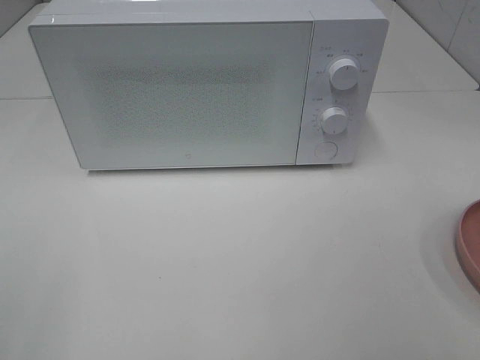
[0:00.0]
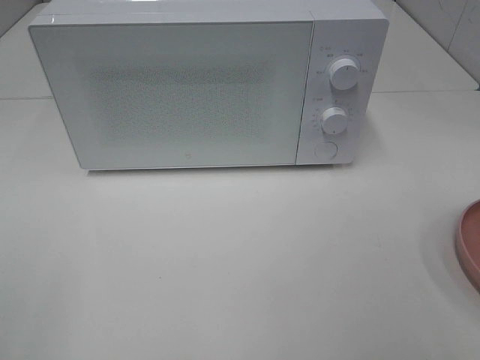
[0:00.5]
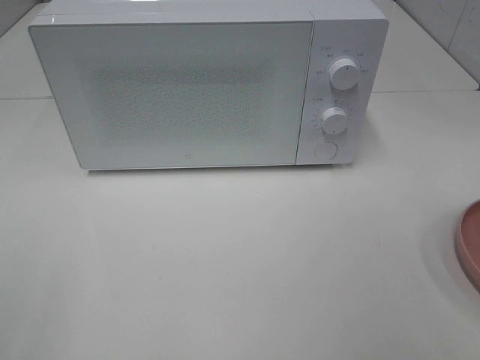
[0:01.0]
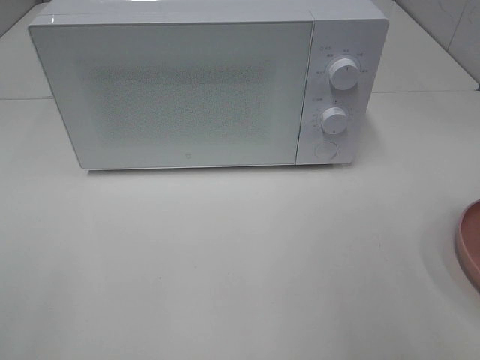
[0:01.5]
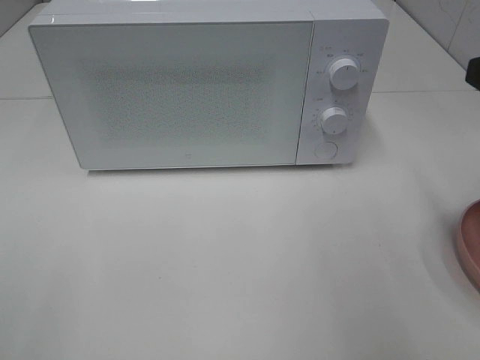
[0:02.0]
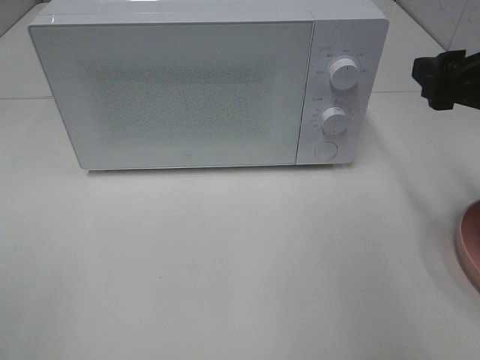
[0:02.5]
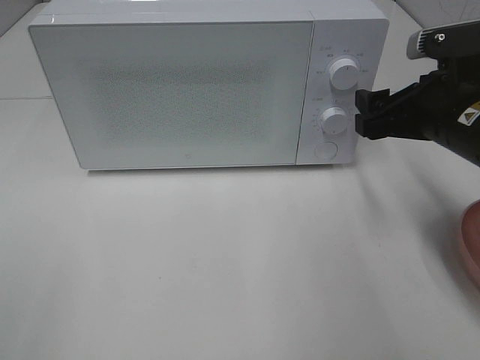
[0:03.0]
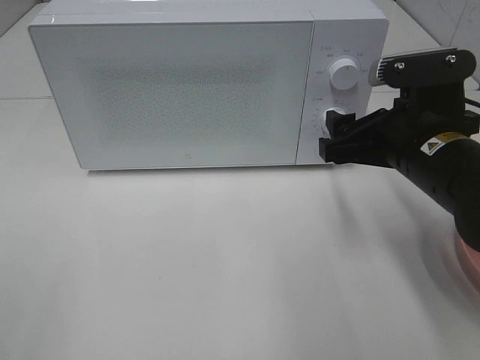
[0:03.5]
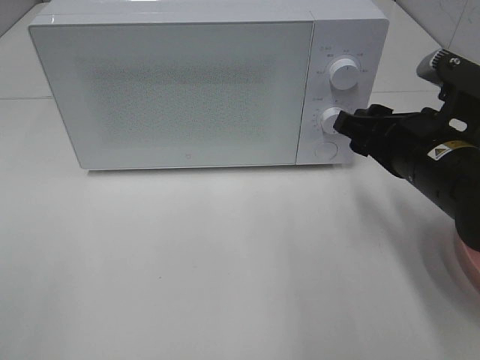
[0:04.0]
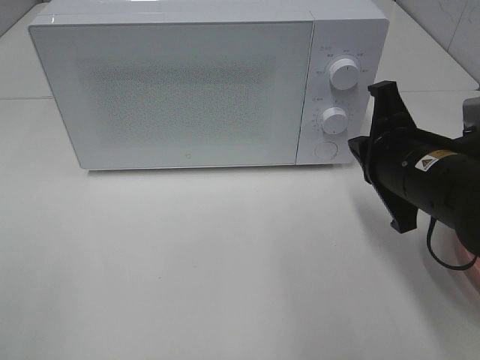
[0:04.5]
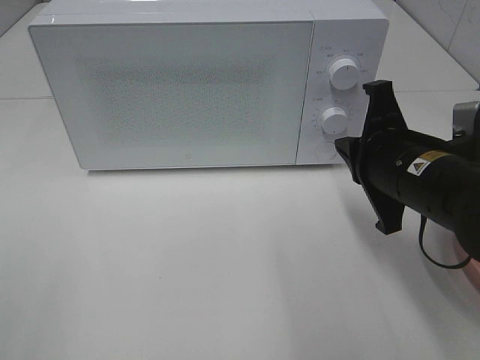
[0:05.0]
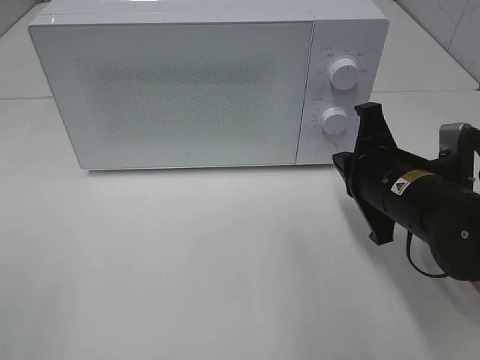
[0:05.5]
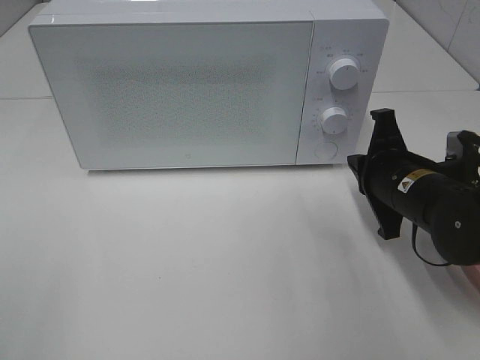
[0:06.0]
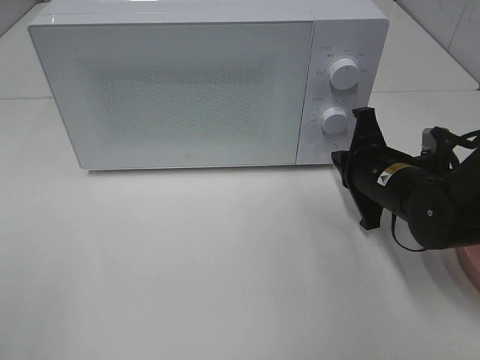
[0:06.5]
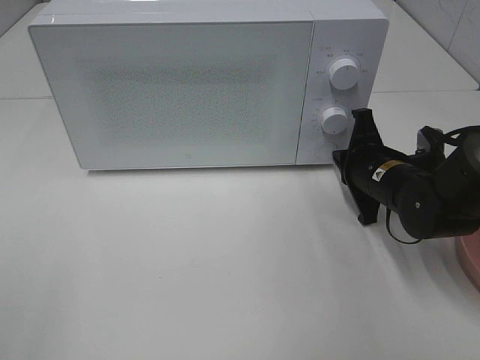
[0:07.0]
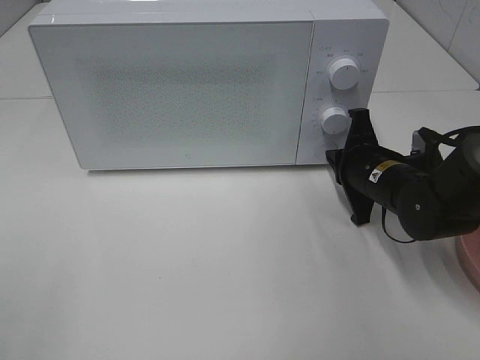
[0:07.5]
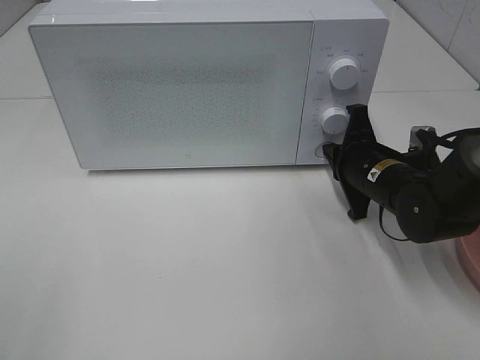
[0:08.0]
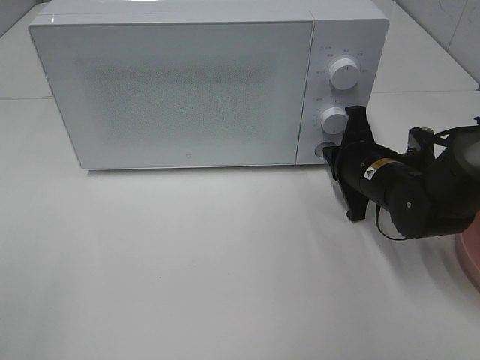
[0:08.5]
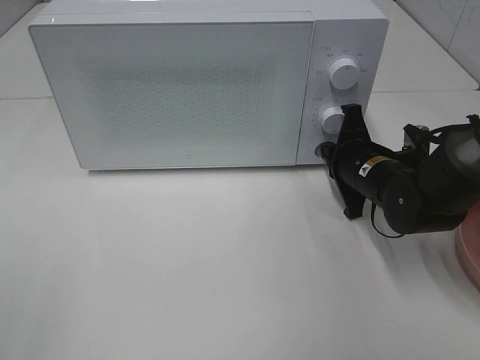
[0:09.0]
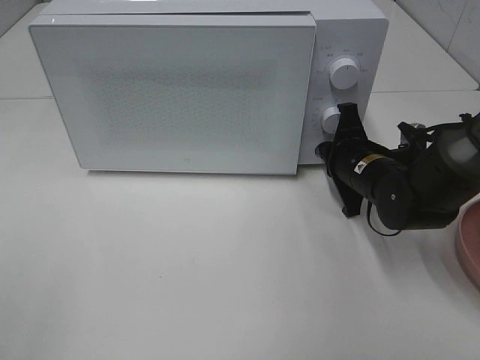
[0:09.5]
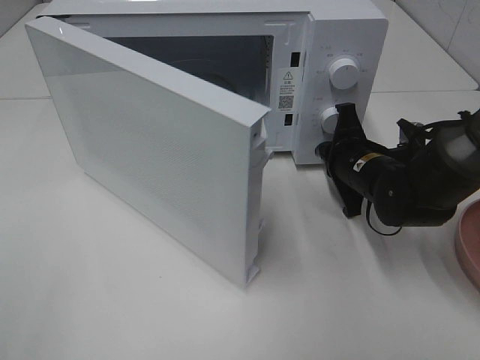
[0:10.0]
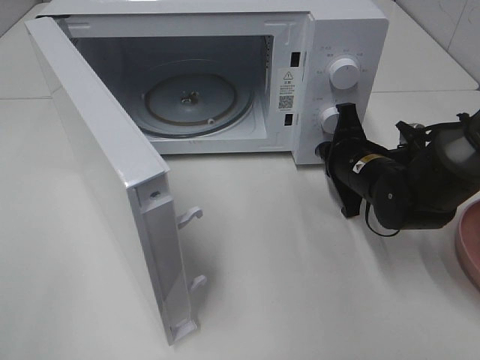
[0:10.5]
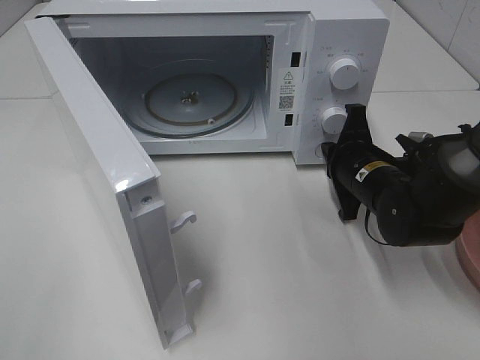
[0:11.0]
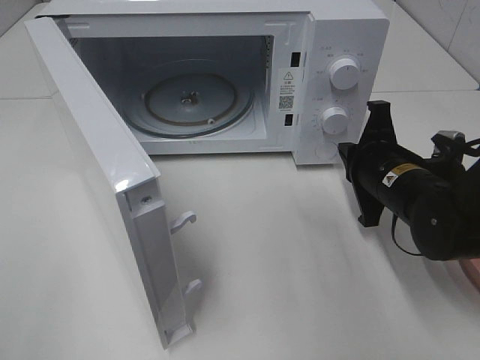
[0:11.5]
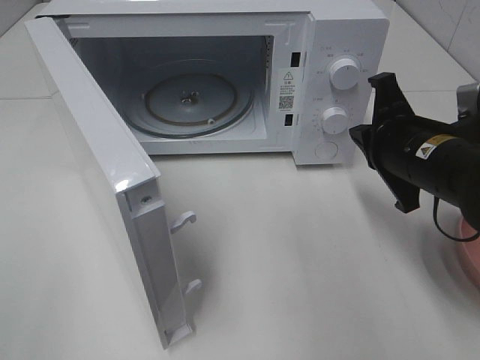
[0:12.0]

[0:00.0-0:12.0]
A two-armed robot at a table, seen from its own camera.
Task of the whole recording: Heat the burger.
Step, 0.0 to 11.0 s: Right hand: press the switch.
2.0 to 4.0 s: The right gripper travels downward, to the left and forward by some 15 cm.
4.0 to 6.0 s: The right gripper is displaced downward by approximately 5 cm, and closes its fingers.
6.0 to 8.0 s: The right gripper goes some 5 cm forward.
10.0 to 12.0 s: The right gripper is displaced upward and backward by about 10 cm.

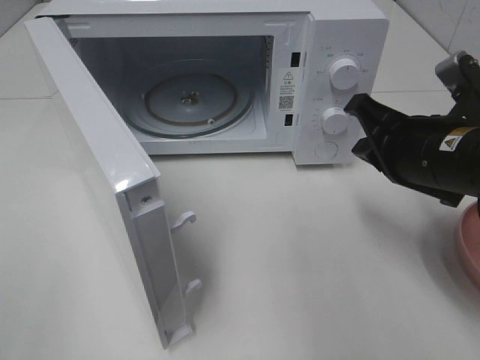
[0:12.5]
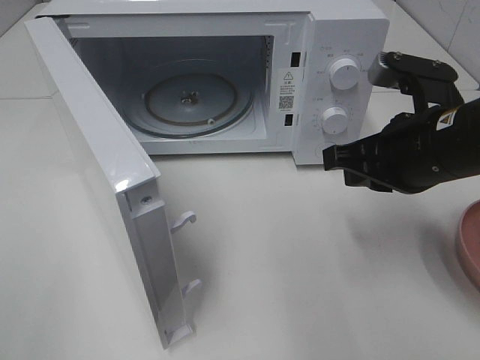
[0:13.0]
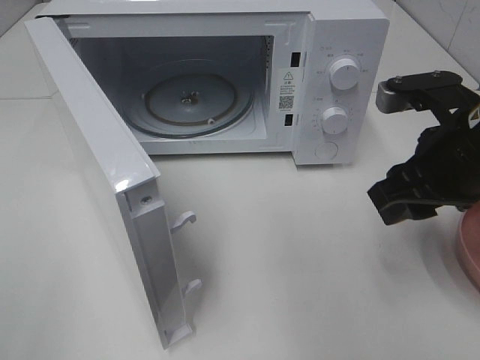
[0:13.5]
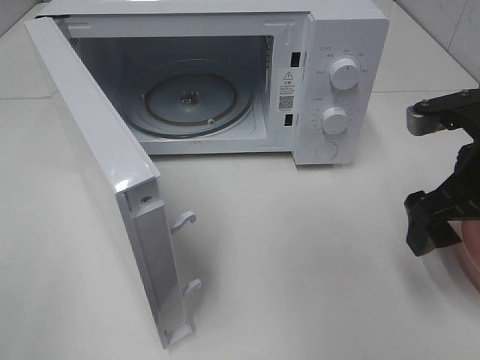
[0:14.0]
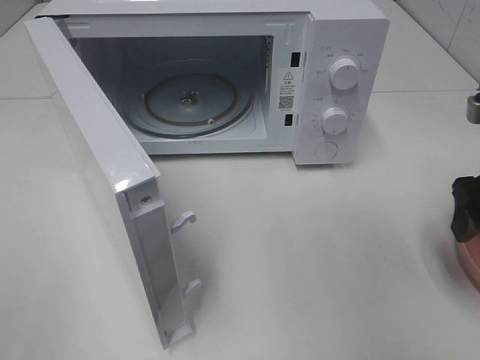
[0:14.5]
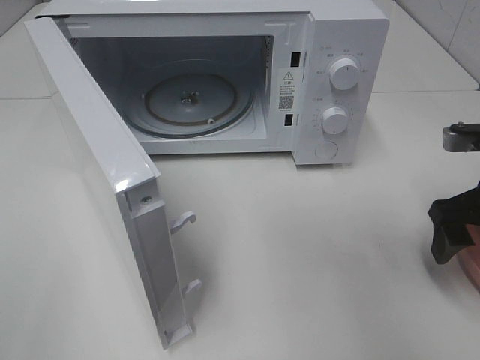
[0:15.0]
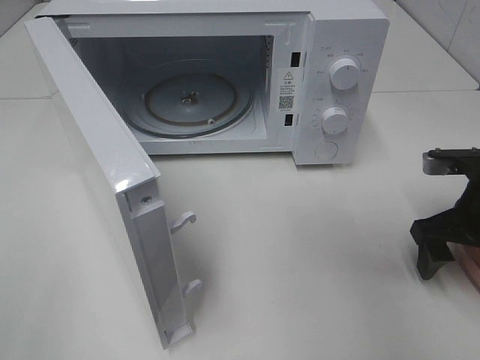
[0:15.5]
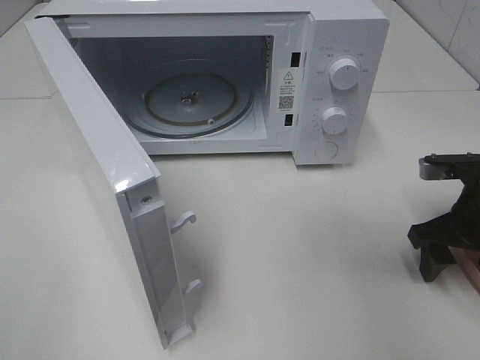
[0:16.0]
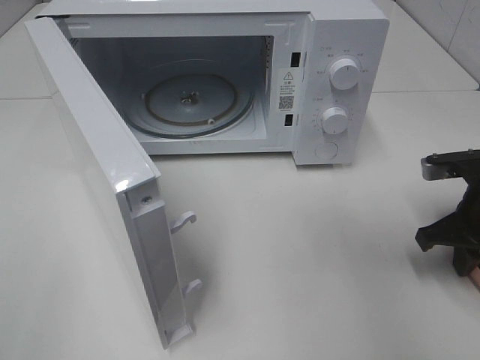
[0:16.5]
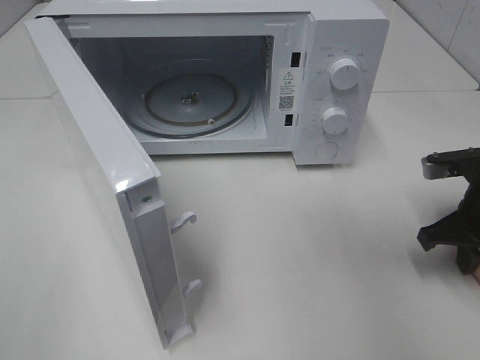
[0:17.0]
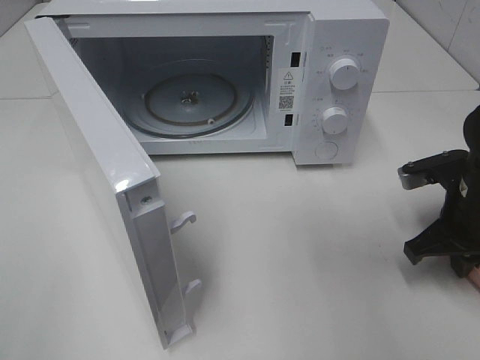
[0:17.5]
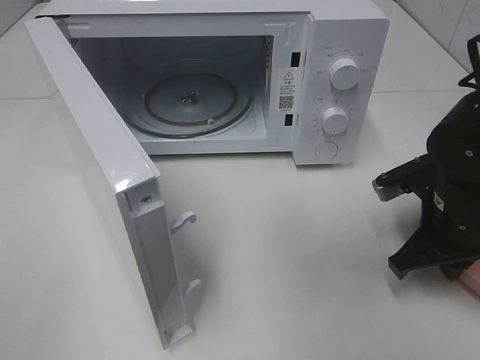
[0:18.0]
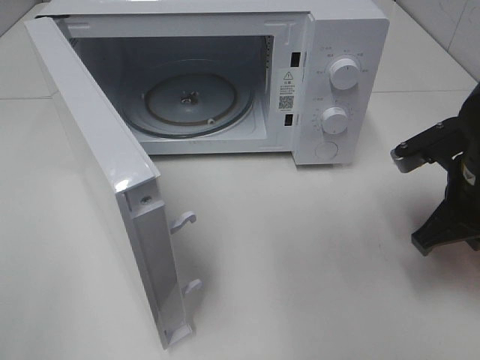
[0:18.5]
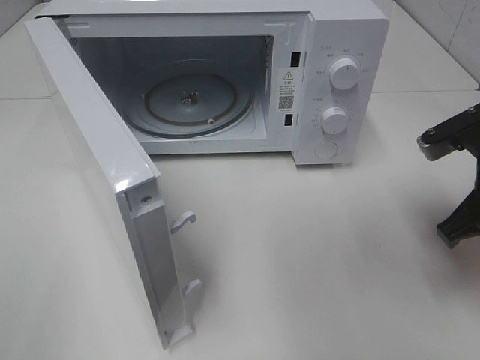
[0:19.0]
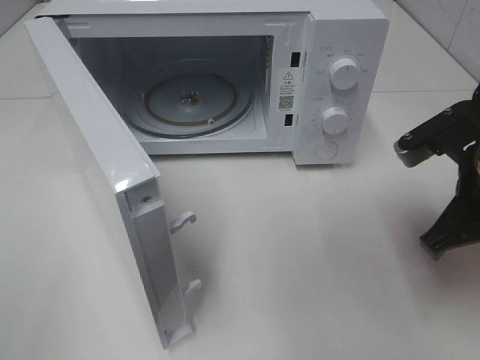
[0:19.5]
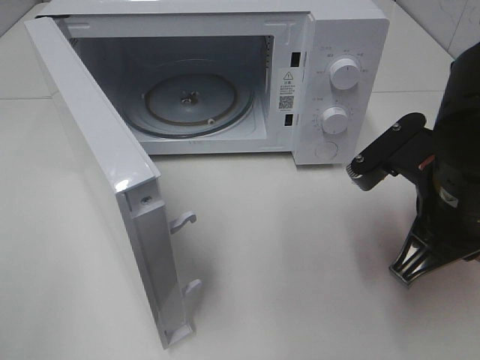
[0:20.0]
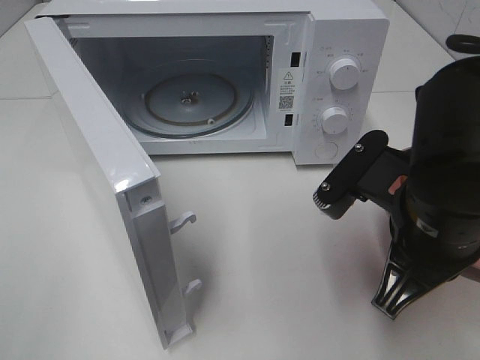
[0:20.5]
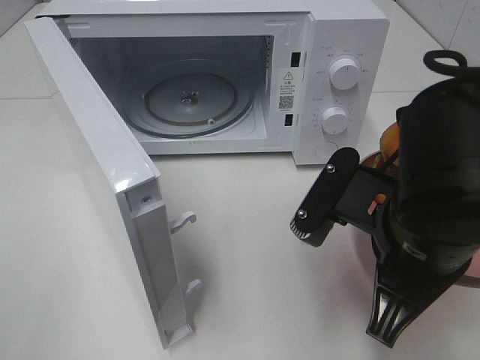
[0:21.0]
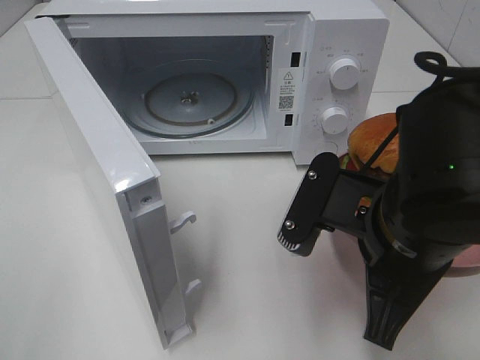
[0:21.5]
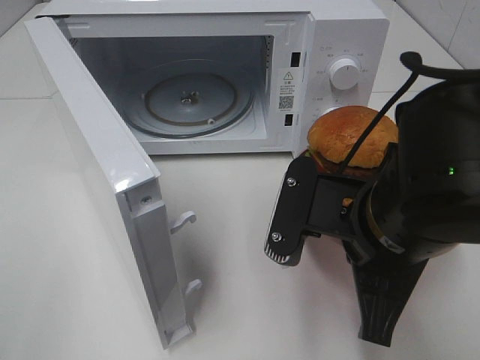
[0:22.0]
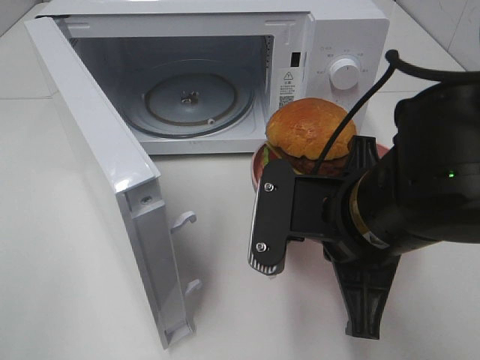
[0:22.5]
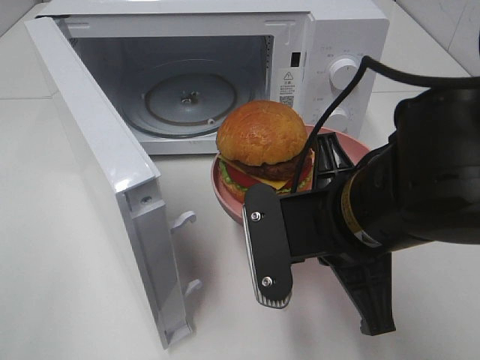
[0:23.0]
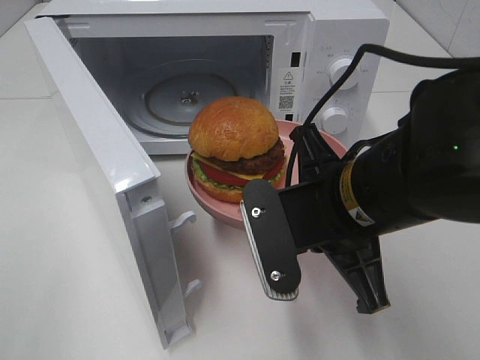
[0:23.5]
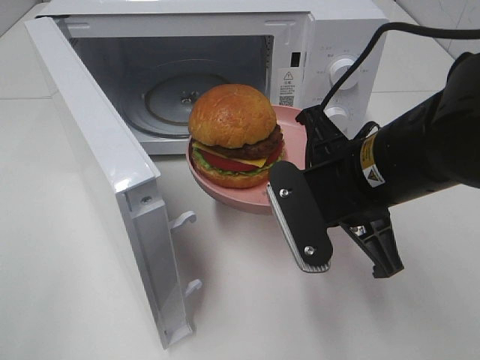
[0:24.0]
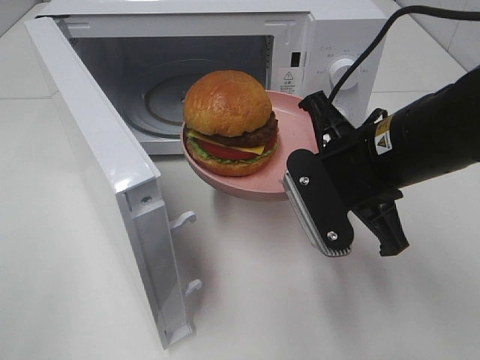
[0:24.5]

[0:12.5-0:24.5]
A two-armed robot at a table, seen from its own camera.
Task of the whole recording: Heat the burger.
Step, 12.5 to 16.5 s: Right hand: grab the plate with the hamburger.
12.5 to 14.5 s: The right gripper is displaced to the right by some 10 cm, and opens its fingers.
14.5 to 16.5 s: The right gripper shifts some 10 cm downward, and closes its fingers.
16.5 to 18.5 s: The right gripper is displaced to the left and upward by roughly 10 cm.
18.5 to 20.5 s: The right gripper is displaced to the left and backward by some 10 cm.
22.5 to 24.5 s: The right gripper moves forward, approximately 5 cm.

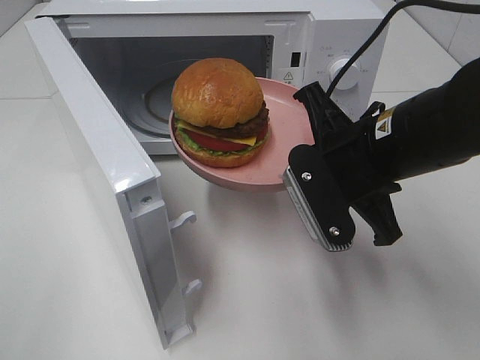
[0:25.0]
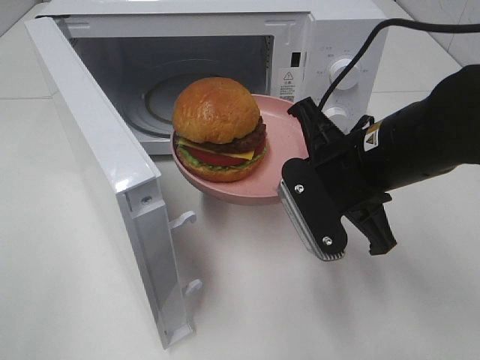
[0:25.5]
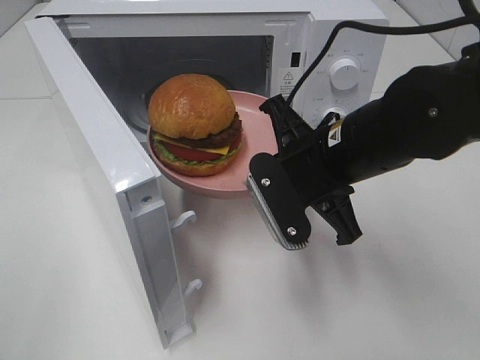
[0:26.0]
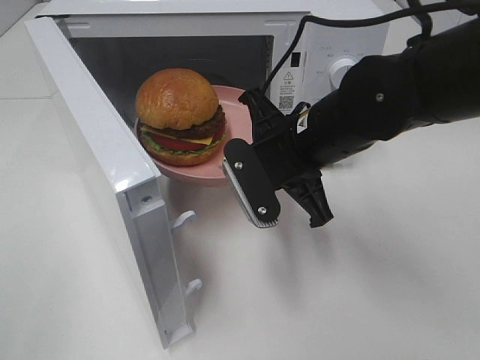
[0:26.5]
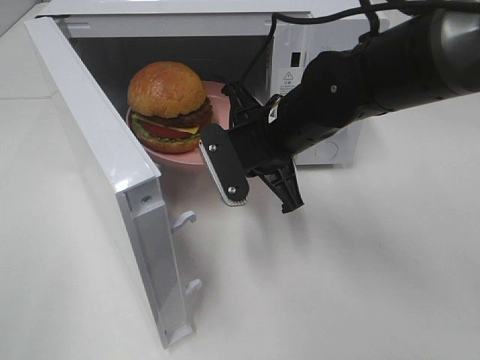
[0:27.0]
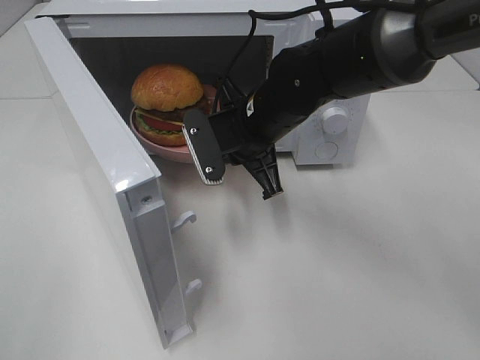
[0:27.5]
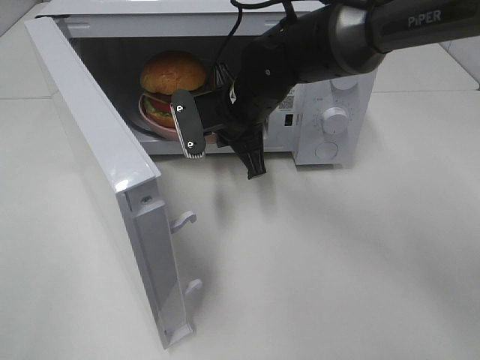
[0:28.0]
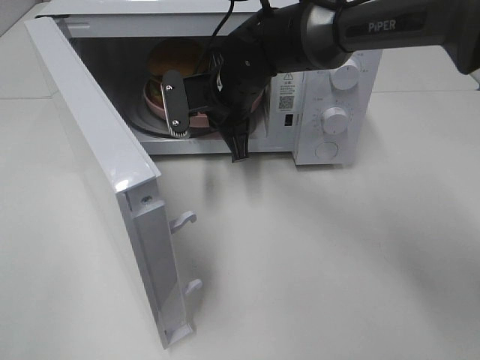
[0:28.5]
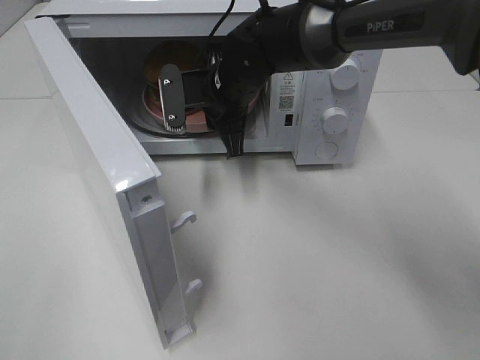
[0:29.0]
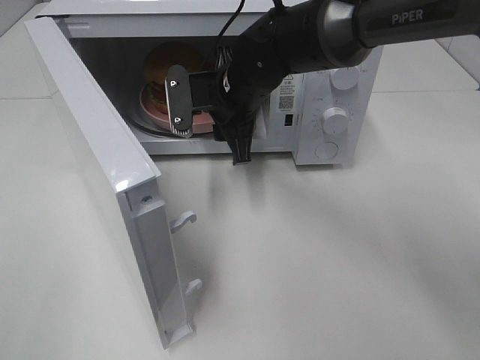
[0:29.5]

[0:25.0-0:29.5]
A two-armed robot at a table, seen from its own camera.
Task of the whole recording: Heat the burger.
Step, 25.0 to 28.5 s: Right hand: place the plate in the microwave.
25.0 to 27.0 s: The right gripper travels forward and to the left by some 10 cm.
27.0 to 29.5 s: The right gripper goes approximately 10 cm forward, and opens up.
